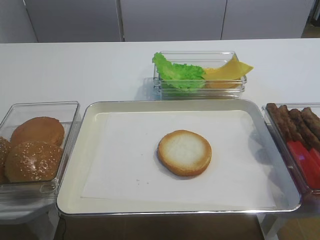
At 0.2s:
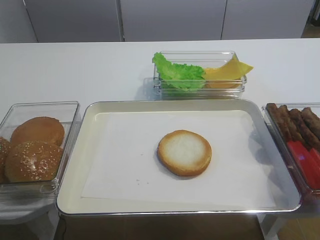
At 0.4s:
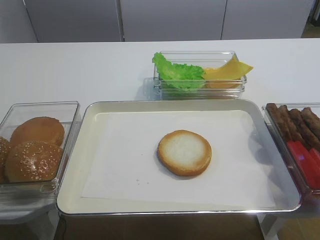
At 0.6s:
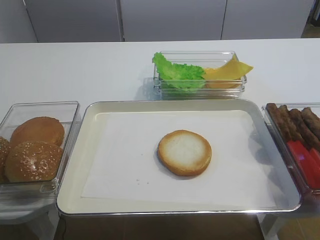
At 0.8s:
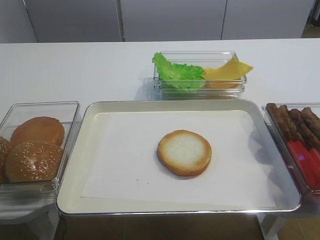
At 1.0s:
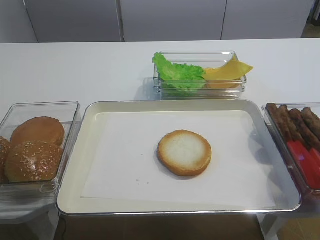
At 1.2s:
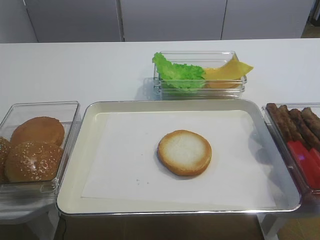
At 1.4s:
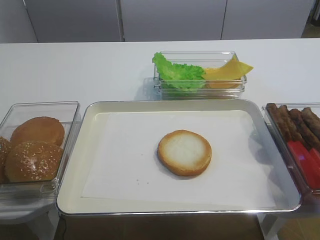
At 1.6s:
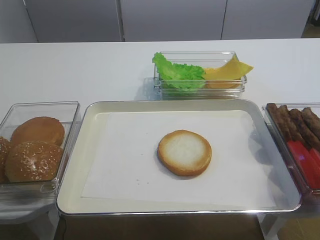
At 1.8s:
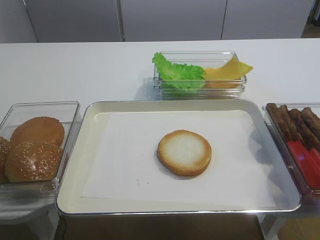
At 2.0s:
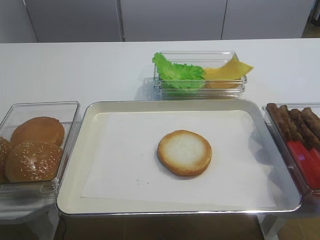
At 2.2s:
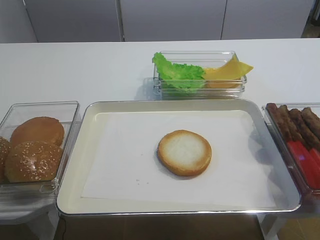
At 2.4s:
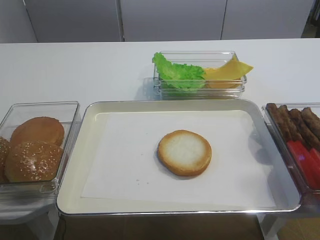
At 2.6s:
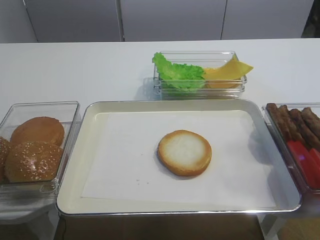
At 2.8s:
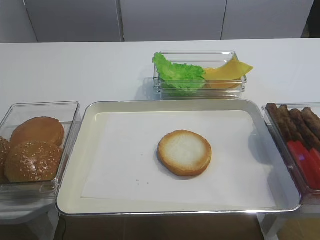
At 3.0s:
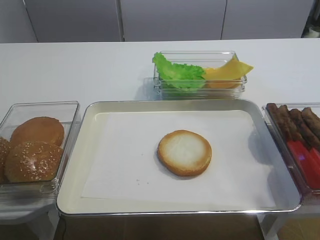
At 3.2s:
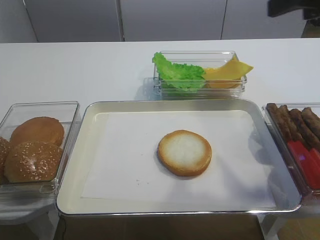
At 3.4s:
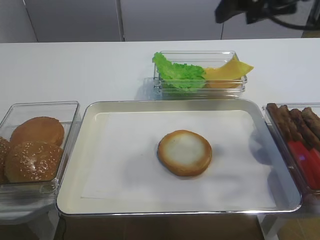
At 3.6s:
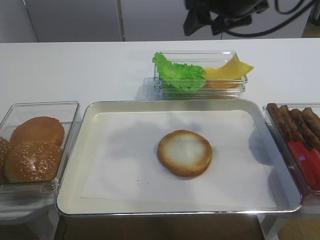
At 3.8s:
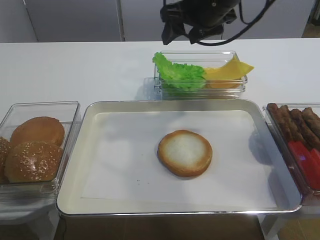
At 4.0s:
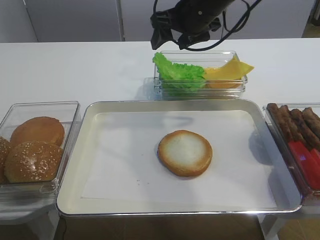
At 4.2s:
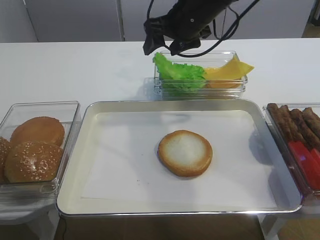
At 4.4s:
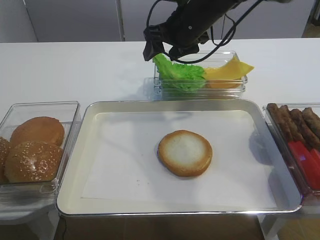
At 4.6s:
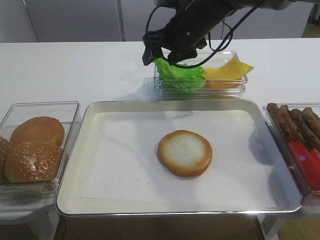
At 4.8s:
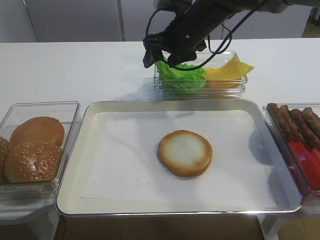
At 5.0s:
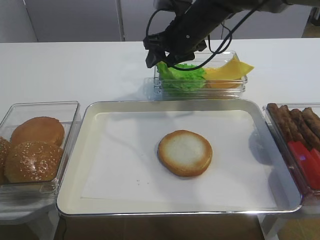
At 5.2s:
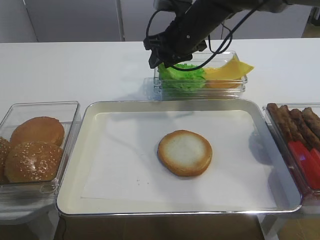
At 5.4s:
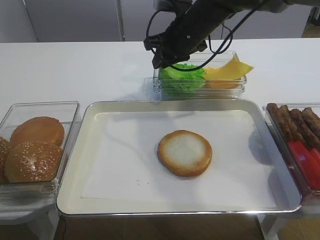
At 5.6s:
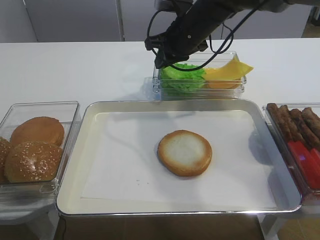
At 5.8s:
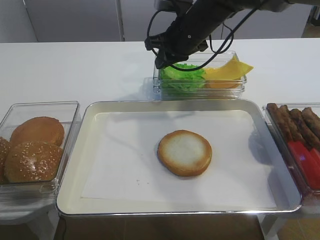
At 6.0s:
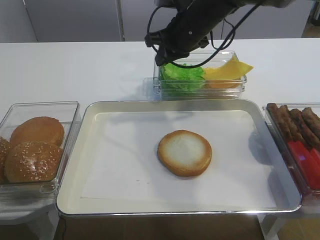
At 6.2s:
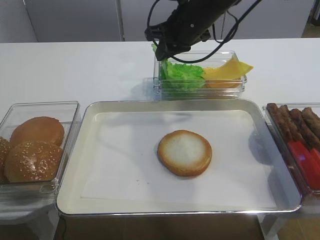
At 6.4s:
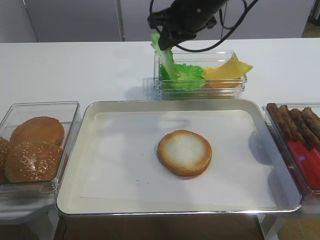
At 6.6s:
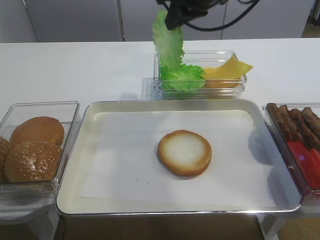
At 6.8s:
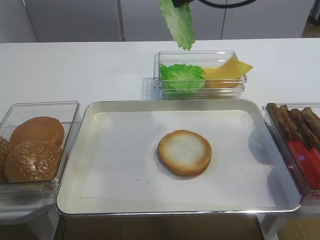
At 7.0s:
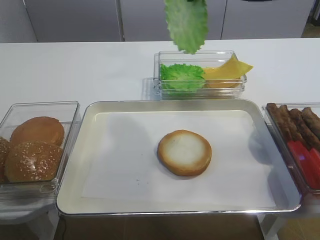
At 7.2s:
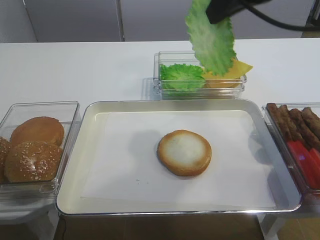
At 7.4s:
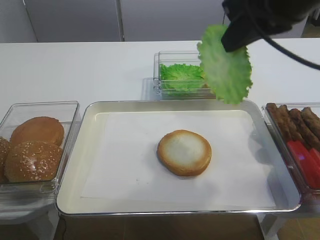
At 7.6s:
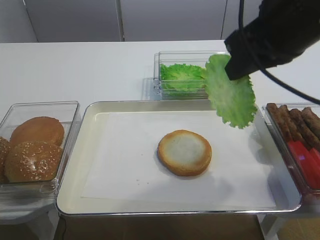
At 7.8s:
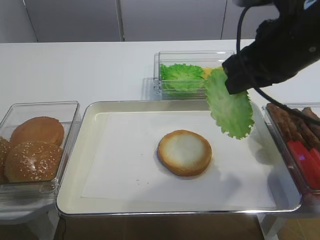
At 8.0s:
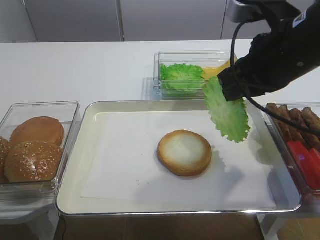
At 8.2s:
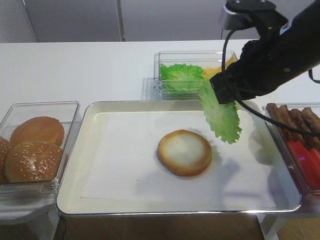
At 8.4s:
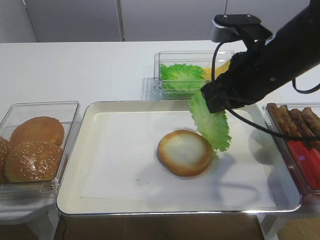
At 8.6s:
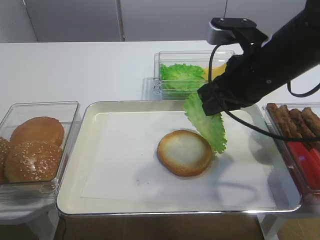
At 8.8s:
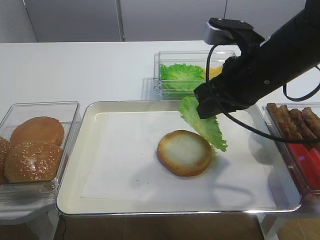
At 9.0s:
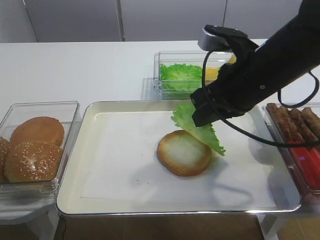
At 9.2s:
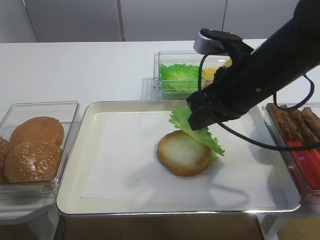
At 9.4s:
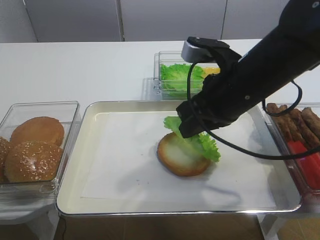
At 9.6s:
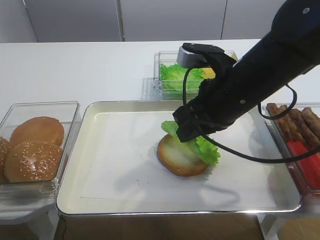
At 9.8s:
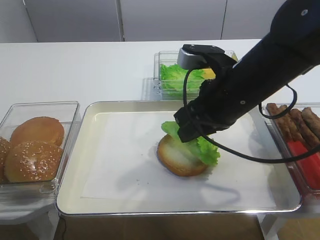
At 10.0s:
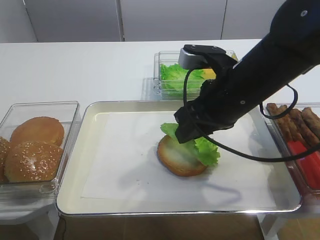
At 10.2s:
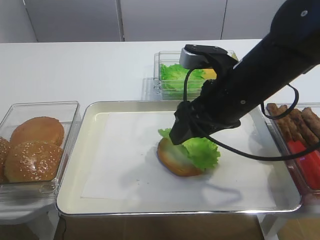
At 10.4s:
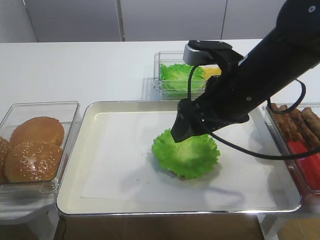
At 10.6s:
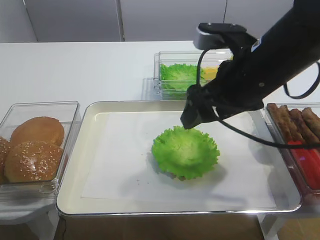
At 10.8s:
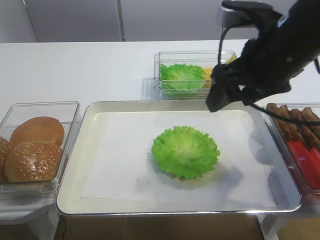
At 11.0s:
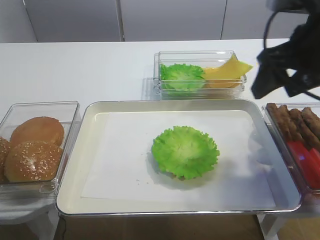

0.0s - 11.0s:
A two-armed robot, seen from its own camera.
Step, 0.0s - 6.4s: Pick up the lettuce leaf with the right gripper.
Step, 6.6s - 10.4s: Place the lettuce leaf on the bread slice with the right gripper.
1.6s - 3.2s: The right gripper shifts about 25 cm forward and upward.
3.2s - 4.8s: The right gripper is displaced forward, to the left and downward by some 30 cm.
4.8s - 6.2s: The right gripper closes its fingers.
6.2s - 7.8s: The right gripper is displaced backward and to the right by some 20 cm.
7.8s - 9.4s: The right gripper goes about 5 cm downward.
9.4s - 11.0s: The right gripper goes roughly 10 cm to the right and upward, and opens.

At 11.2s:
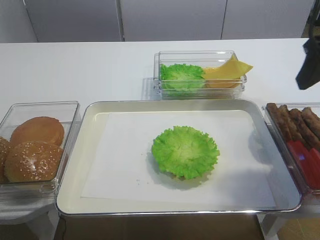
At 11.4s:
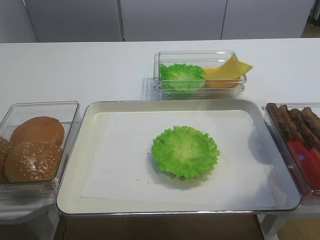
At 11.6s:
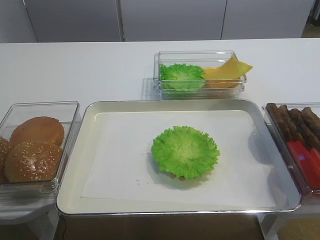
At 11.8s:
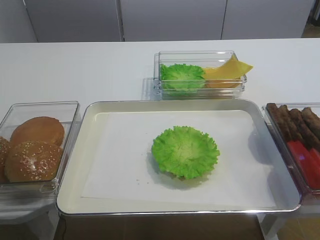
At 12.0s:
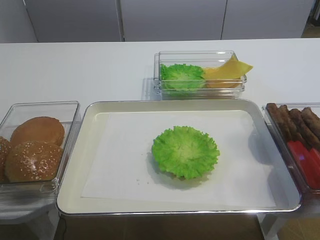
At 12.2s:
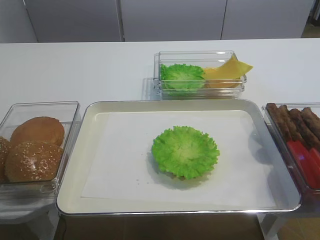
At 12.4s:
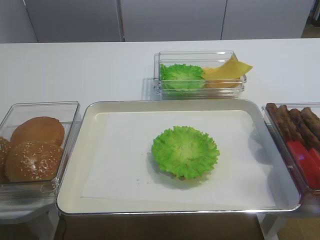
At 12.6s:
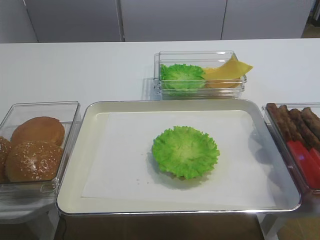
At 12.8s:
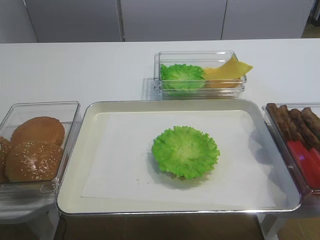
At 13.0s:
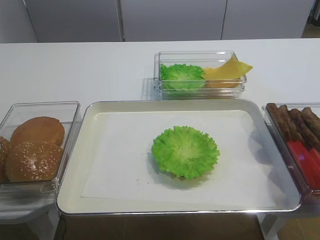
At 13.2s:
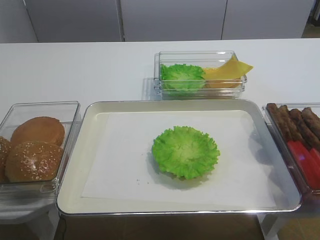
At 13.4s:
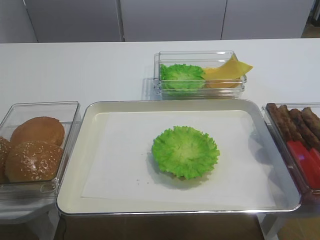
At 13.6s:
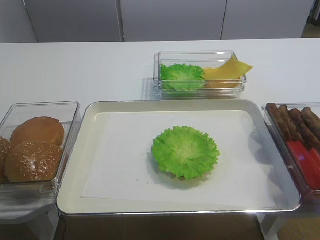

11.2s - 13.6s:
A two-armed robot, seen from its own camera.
11.2s - 12.4s: The right gripper goes approximately 25 cm backward.

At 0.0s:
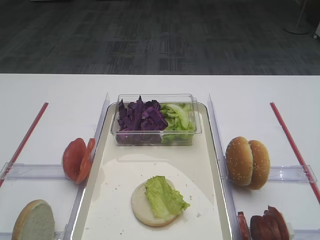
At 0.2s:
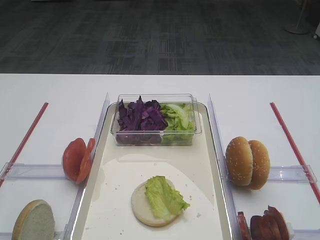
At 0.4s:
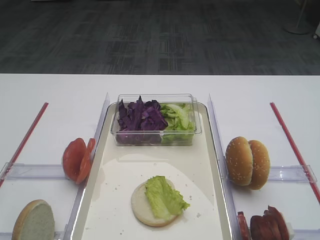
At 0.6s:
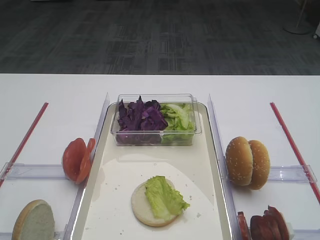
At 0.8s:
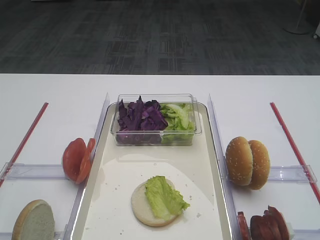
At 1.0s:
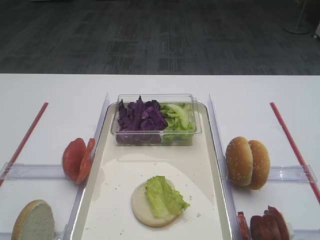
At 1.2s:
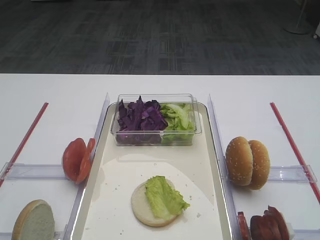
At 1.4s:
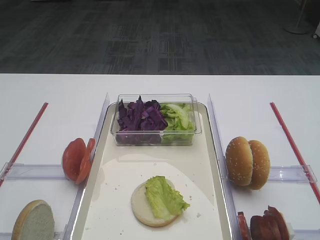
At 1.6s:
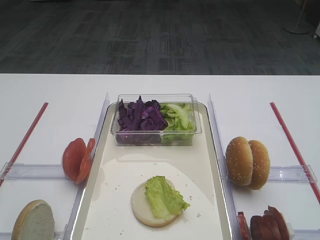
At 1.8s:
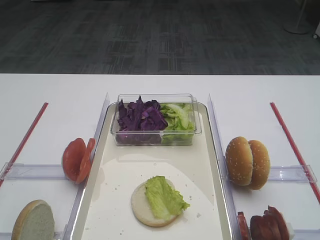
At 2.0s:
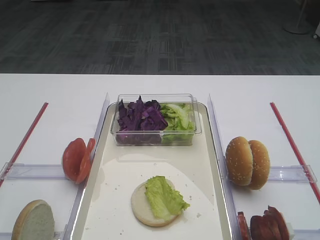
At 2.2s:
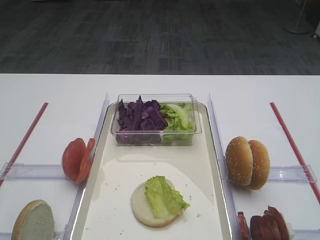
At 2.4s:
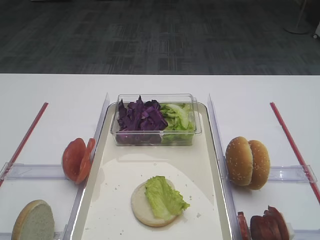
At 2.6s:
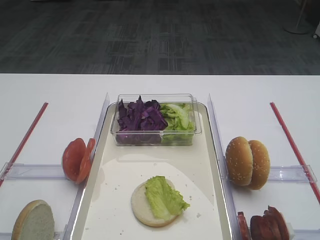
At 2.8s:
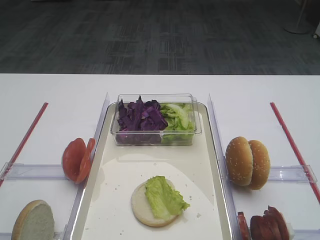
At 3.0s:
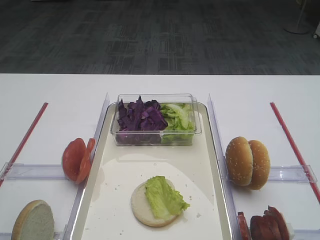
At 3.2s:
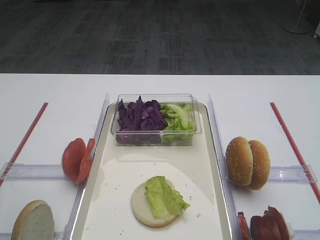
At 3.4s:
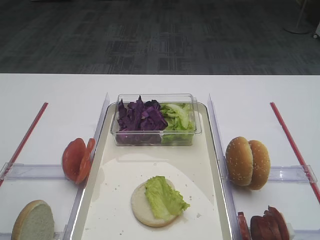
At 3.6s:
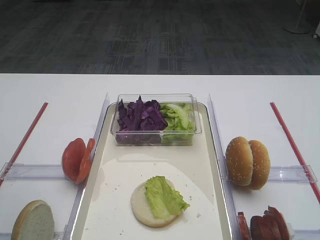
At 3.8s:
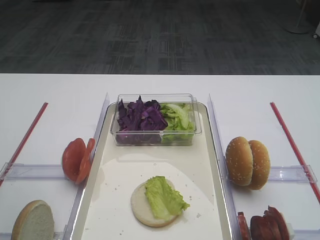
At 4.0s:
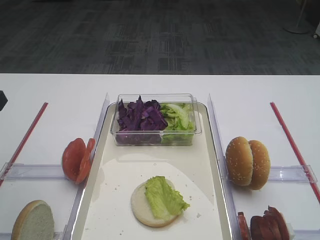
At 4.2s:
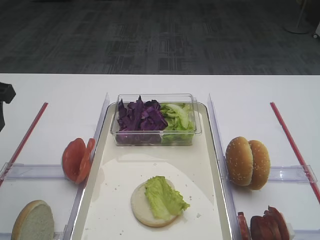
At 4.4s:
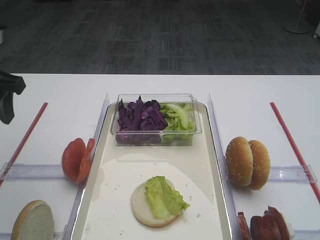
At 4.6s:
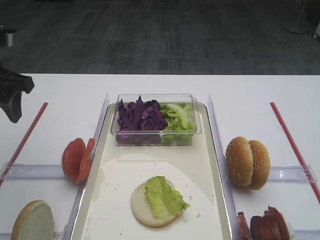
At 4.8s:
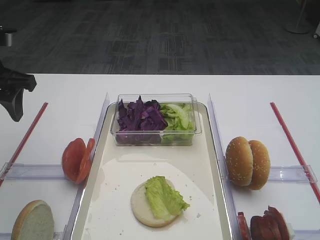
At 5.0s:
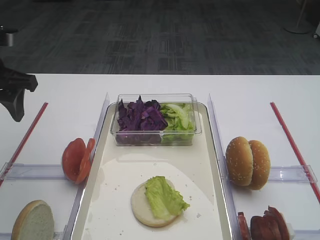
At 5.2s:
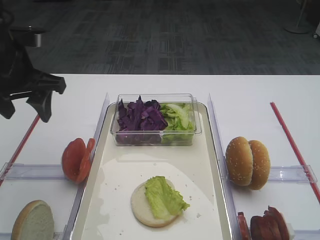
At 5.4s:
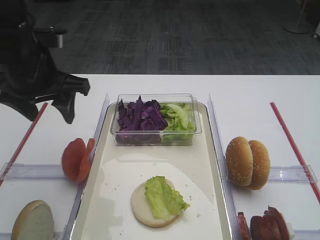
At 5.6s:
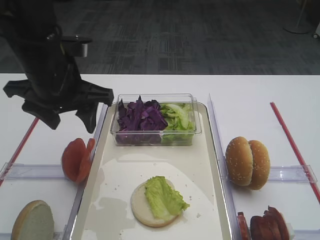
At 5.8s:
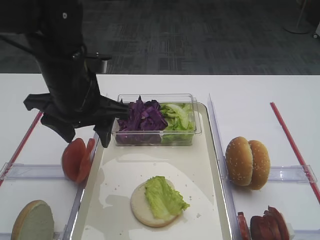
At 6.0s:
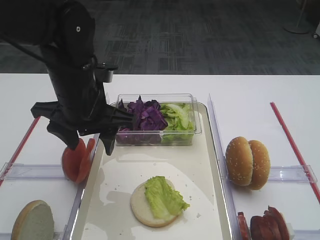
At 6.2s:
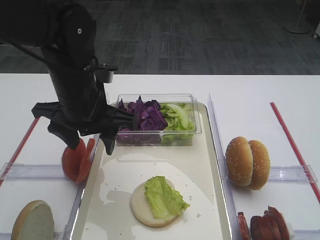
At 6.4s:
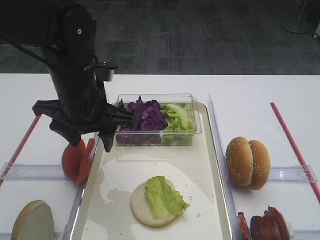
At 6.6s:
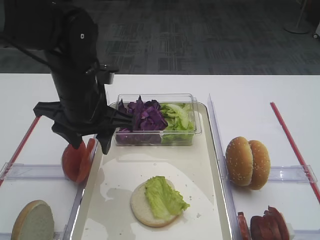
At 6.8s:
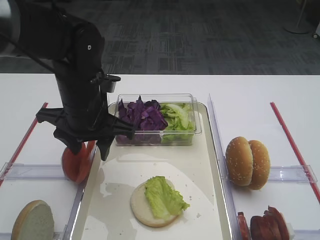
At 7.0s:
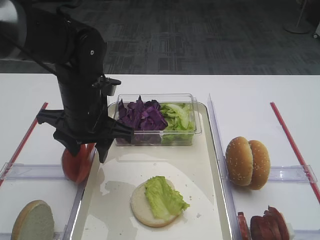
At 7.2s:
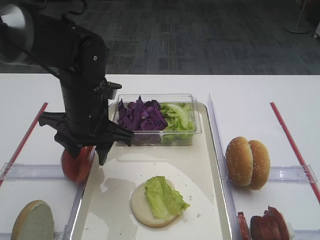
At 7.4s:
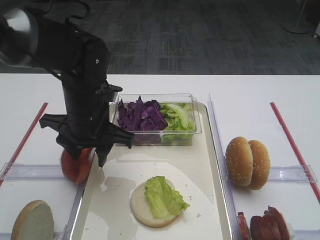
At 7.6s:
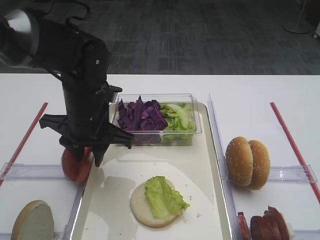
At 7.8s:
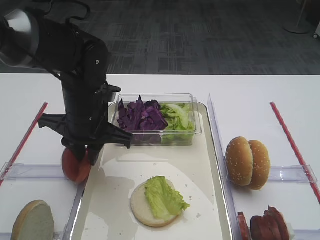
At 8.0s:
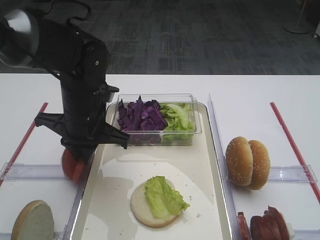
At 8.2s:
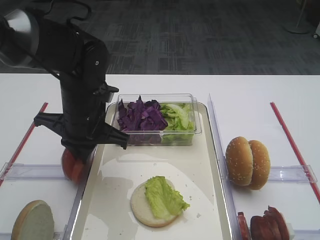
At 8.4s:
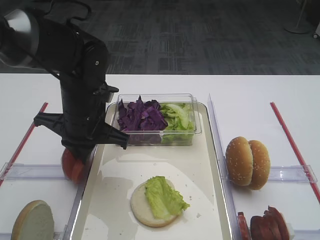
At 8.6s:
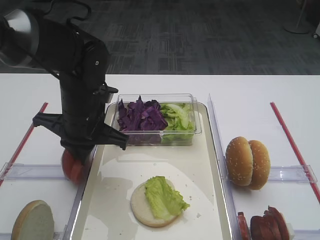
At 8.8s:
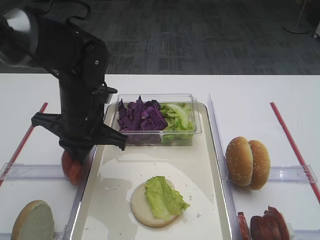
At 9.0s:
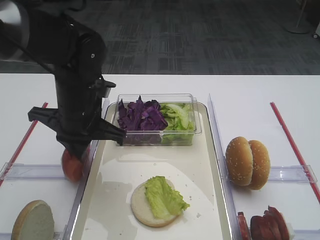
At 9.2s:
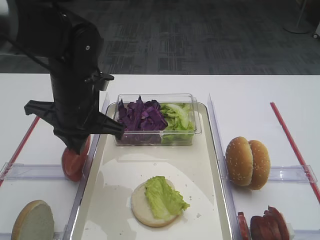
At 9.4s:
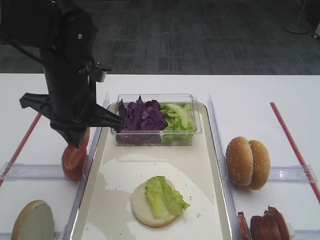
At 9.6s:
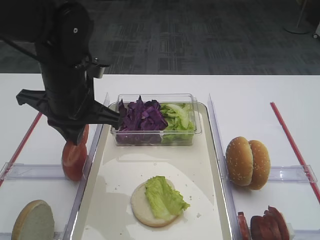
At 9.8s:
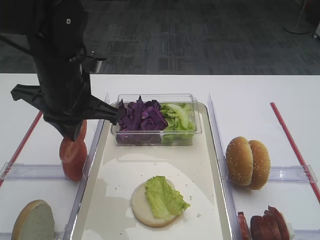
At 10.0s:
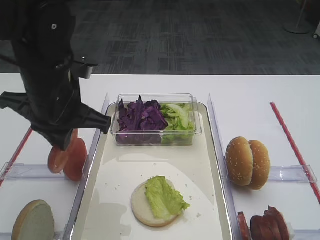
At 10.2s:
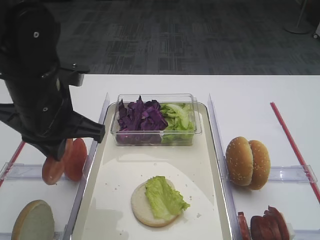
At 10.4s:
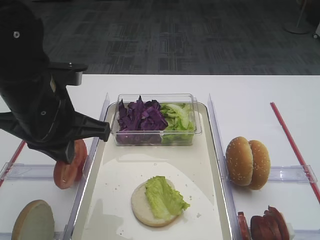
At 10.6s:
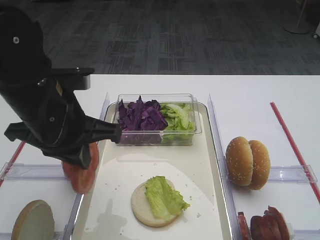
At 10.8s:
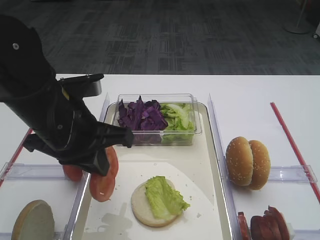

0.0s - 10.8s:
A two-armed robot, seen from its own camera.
Step, 0.0s - 9.4s: Pick up the tomato slice with the left gripper.
3.0s - 4.6s: The left gripper heads forward, covering approximately 20 cm.
4.6s - 6.2s: The left gripper is displaced to the right by some 15 cm.
6.2s - 7.8s: The left gripper closes.
7.8s - 9.2s: There are only small adjustments of the grippers.
9.2s - 10.8s: The left gripper goes roughly 5 cm backward.
